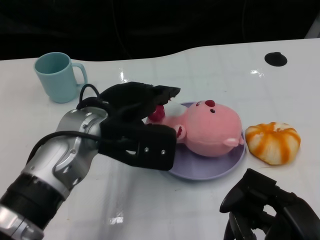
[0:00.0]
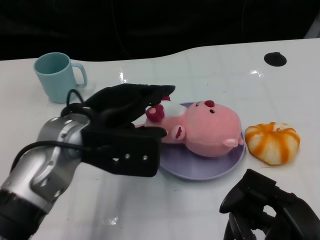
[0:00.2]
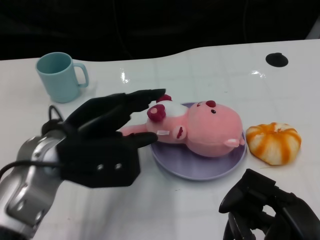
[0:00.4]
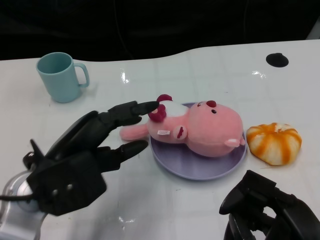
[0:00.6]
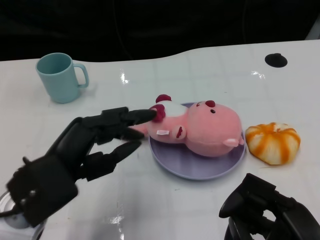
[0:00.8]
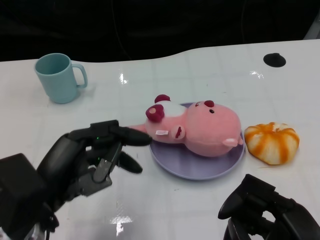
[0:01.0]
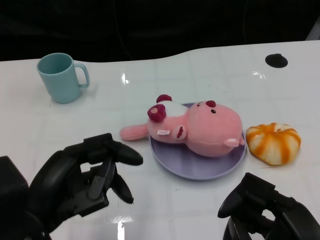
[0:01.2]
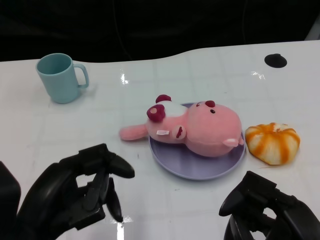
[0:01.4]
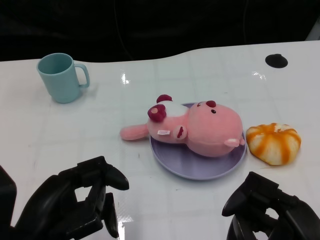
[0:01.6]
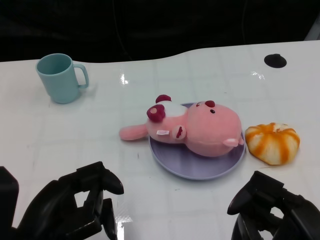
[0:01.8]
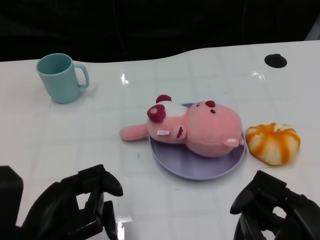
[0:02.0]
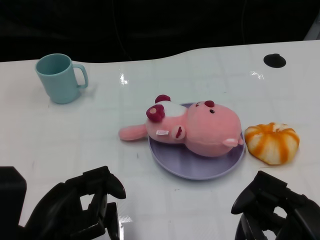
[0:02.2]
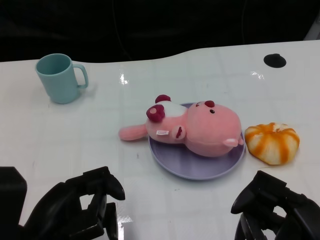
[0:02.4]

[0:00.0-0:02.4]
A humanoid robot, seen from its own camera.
Task of the whole recording: Pick up the doll on one side of the plate and place it into the plate.
0:00.0 to 0:01.2: The left hand moves backward and to the left, about 15 cm.

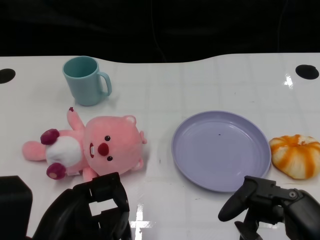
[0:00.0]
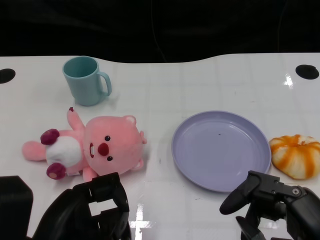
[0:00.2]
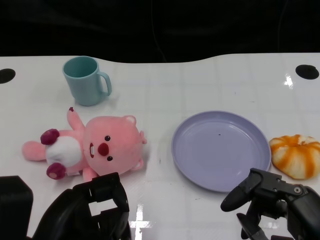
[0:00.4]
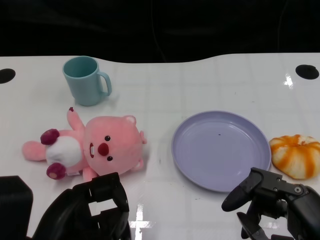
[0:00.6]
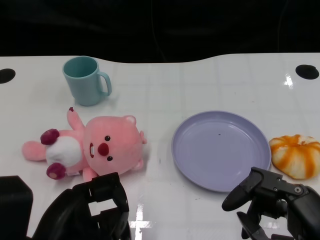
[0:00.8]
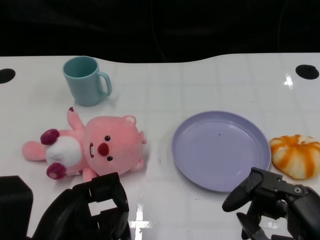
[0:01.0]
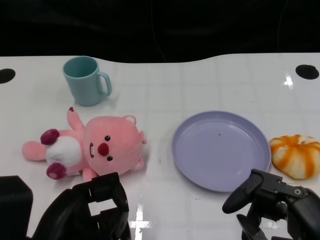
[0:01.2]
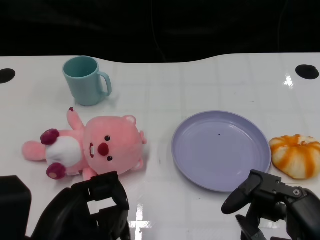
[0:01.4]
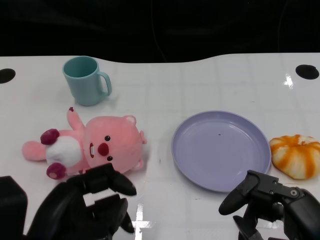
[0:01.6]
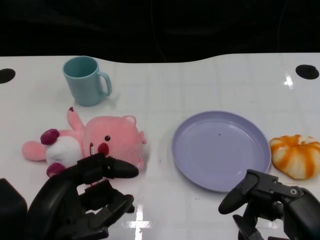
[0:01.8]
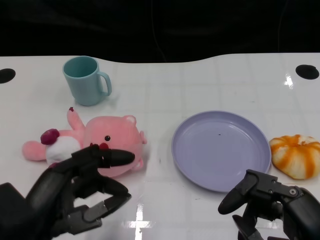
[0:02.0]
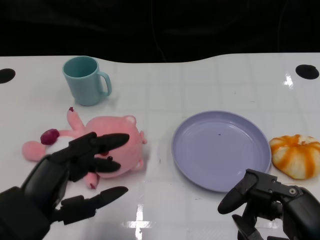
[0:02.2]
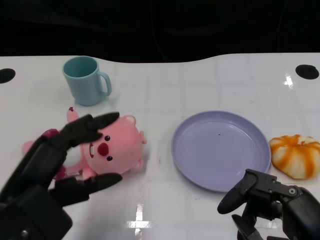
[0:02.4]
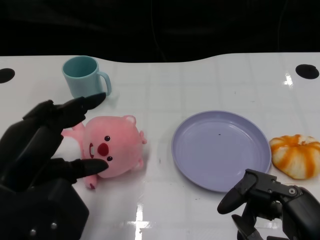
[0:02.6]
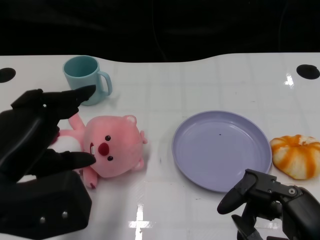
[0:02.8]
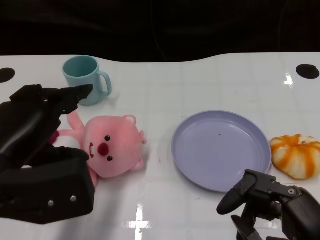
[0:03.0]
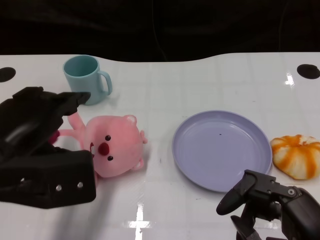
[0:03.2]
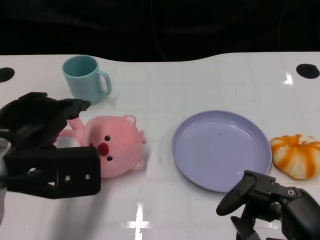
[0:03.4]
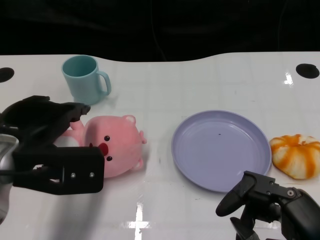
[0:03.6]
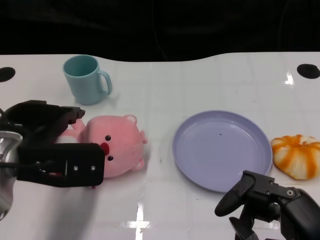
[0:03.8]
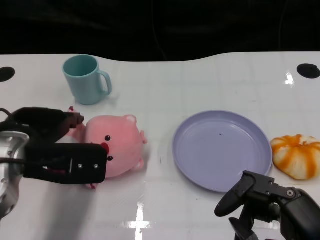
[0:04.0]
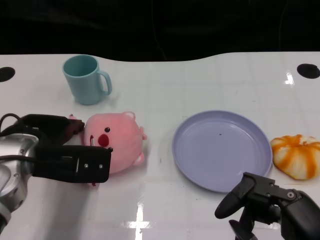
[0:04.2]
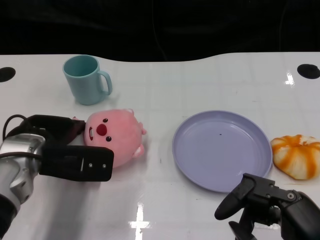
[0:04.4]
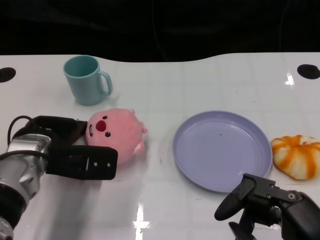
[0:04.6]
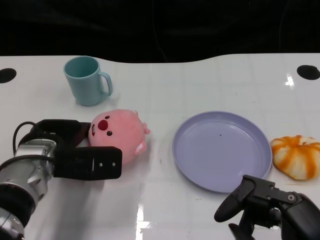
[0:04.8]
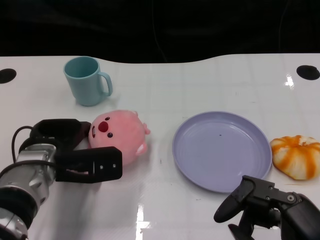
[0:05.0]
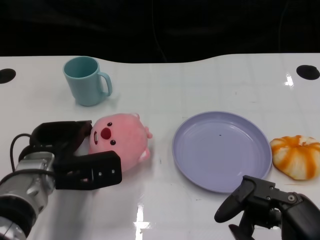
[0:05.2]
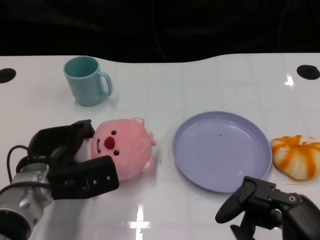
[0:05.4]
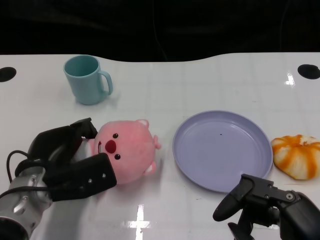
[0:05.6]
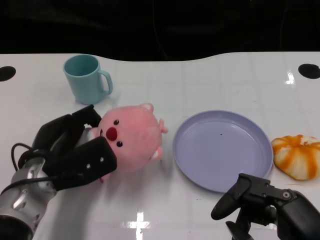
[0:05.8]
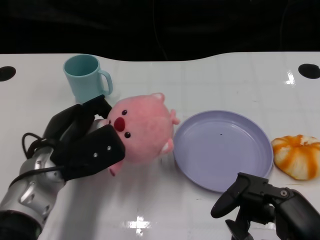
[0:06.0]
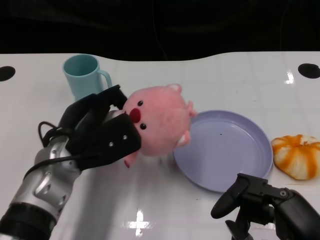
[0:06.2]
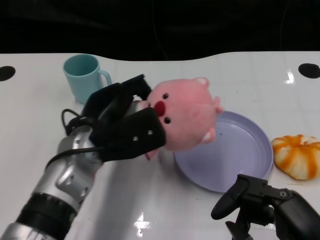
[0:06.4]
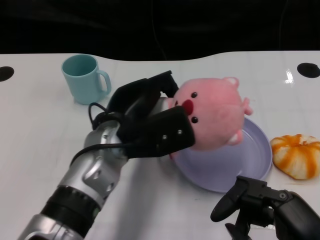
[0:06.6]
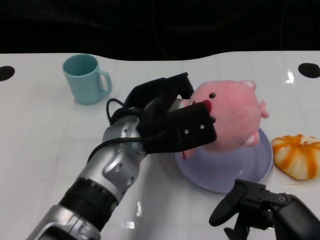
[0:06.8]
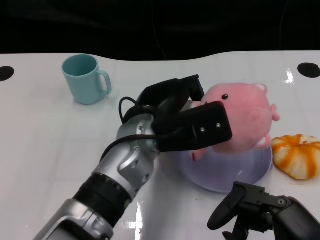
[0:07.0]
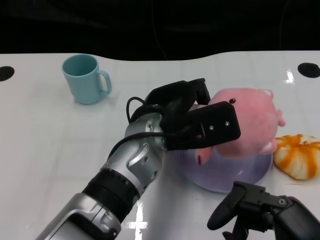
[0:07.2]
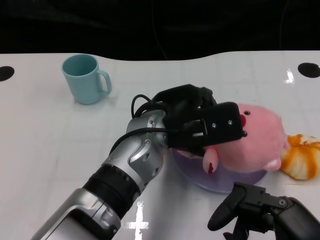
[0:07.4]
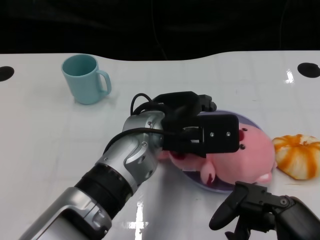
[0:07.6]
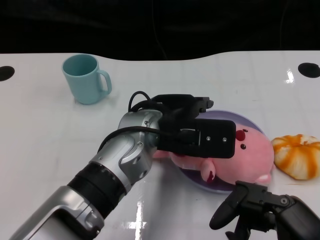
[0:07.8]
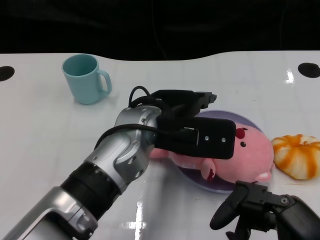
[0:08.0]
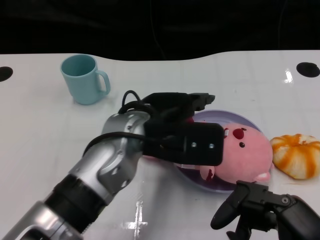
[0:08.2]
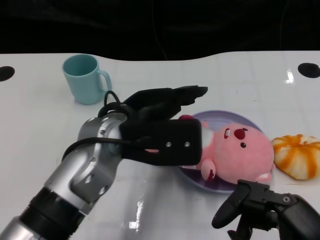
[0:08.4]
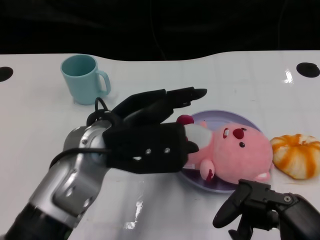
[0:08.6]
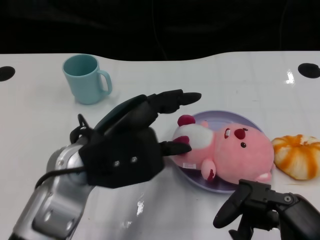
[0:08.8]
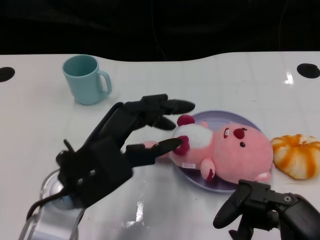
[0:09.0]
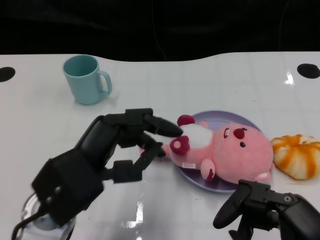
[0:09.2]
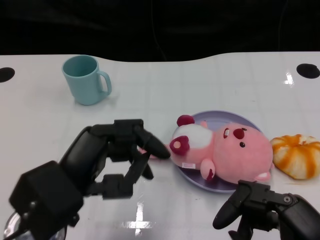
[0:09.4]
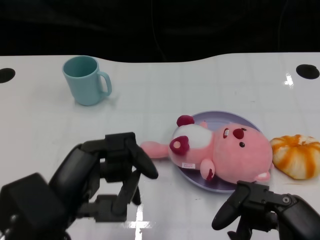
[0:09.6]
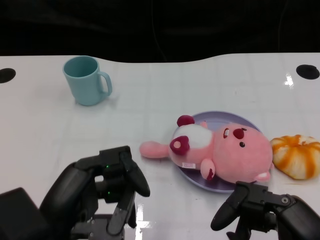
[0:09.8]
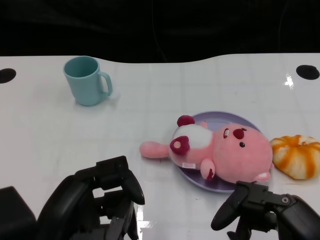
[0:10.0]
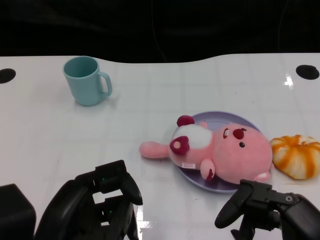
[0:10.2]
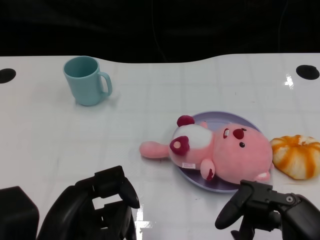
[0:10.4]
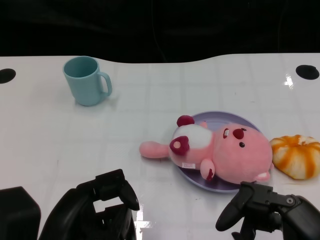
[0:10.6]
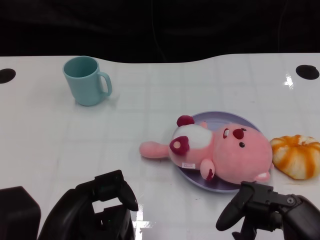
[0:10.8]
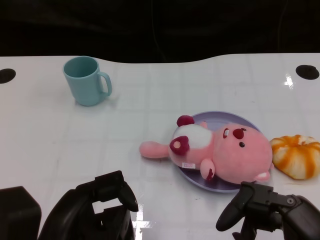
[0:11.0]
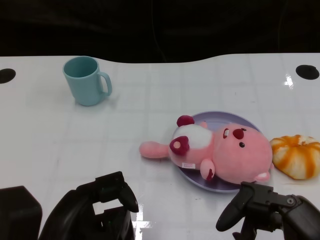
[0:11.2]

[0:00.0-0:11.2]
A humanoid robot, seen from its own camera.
Task of the whole recording: Pick up the doll on one side of the plate and place it into the plate.
Step, 0:01.4 to 0:05.6: Grasp the pink doll with the left gripper.
Step, 0:06.0 to 0:07.8: Place the pink doll into the plate with the left gripper.
0:01.6 to 0:03.2: The left hand moves forward and upward, some 10 cm.
0:03.2 to 0:04.8: The left hand heads downward and forward, covering about 15 cm.
0:04.8 to 0:06.4: The left hand goes about 5 cm to the right.
0:06.4 to 0:08.0: The left hand is displaced to the right by approximately 10 cm.
0:08.0 to 0:09.6: The left hand shifts roughly 20 cm to the left and backward.

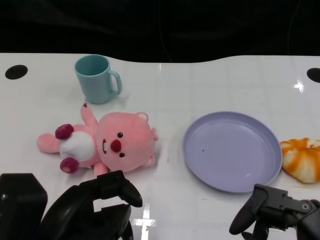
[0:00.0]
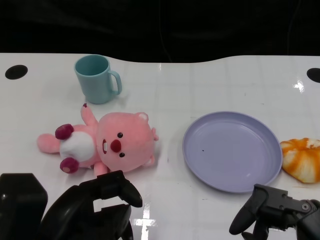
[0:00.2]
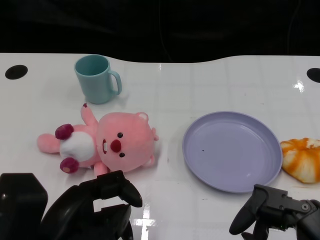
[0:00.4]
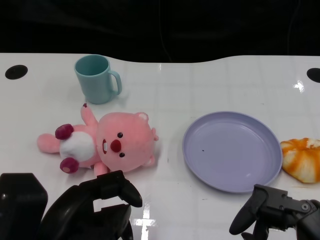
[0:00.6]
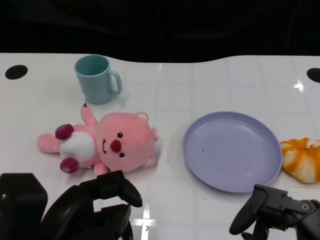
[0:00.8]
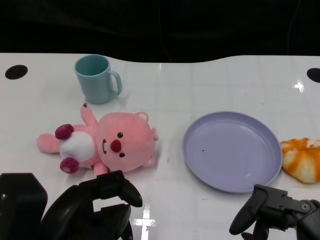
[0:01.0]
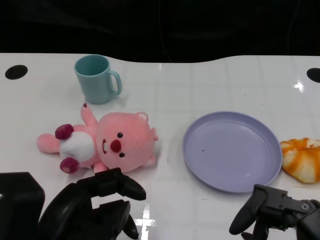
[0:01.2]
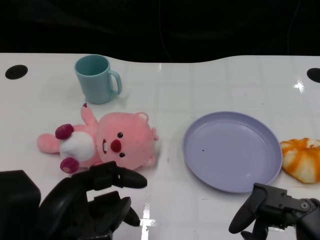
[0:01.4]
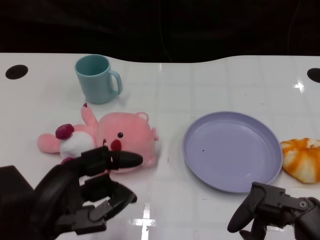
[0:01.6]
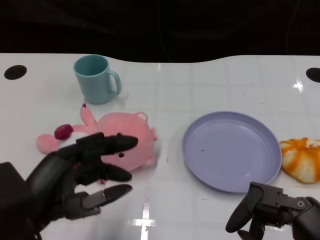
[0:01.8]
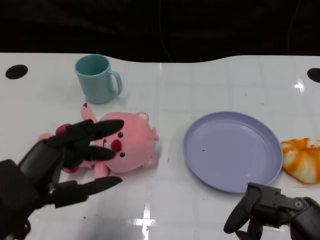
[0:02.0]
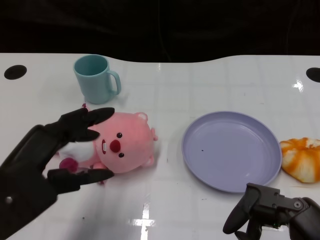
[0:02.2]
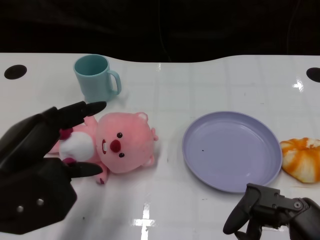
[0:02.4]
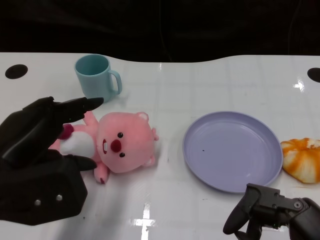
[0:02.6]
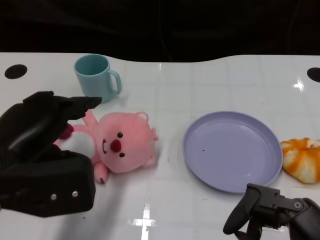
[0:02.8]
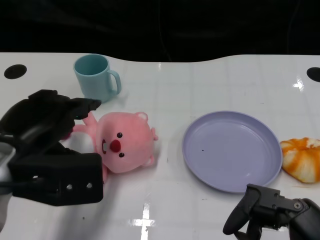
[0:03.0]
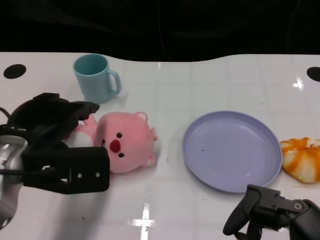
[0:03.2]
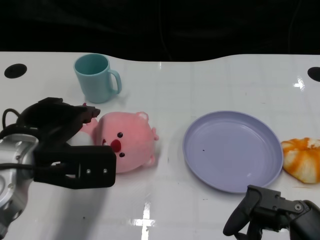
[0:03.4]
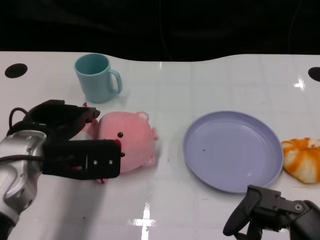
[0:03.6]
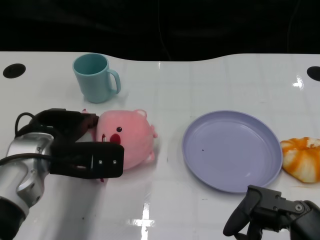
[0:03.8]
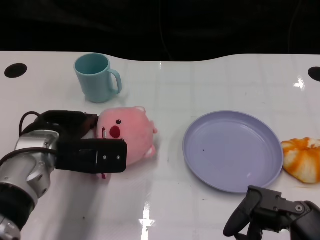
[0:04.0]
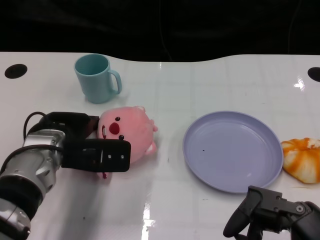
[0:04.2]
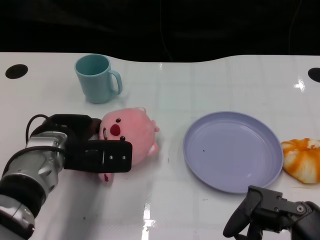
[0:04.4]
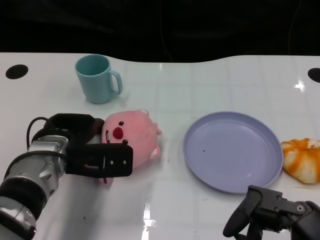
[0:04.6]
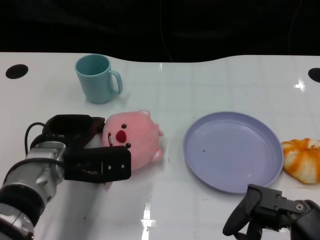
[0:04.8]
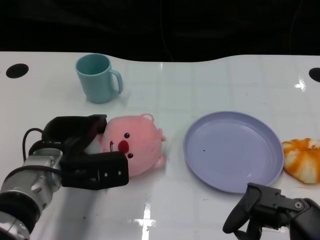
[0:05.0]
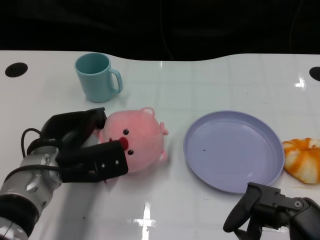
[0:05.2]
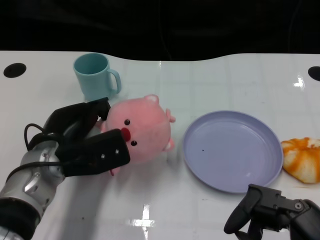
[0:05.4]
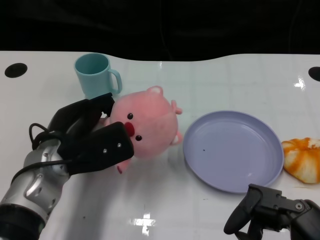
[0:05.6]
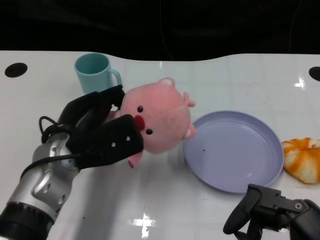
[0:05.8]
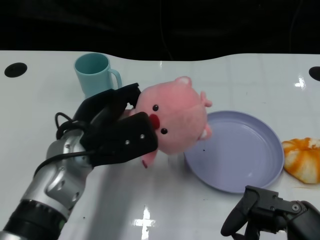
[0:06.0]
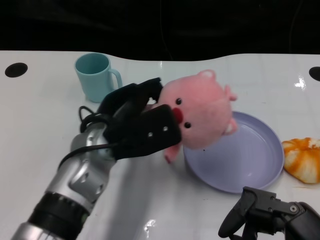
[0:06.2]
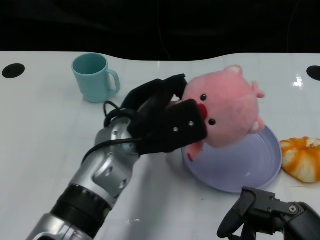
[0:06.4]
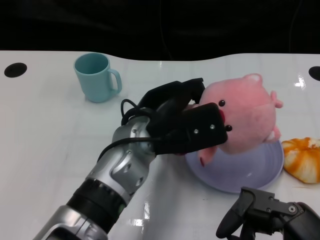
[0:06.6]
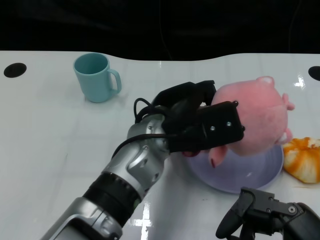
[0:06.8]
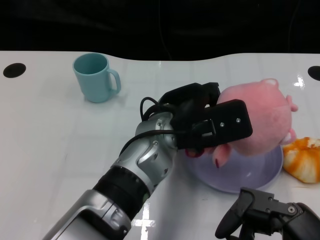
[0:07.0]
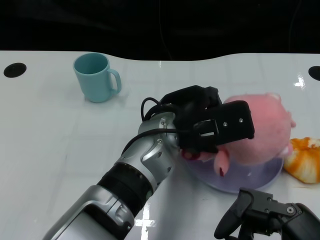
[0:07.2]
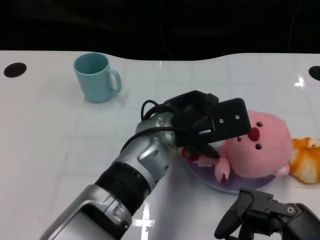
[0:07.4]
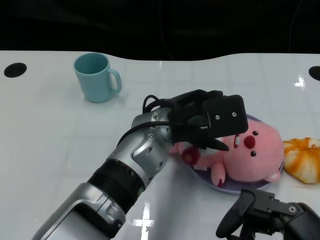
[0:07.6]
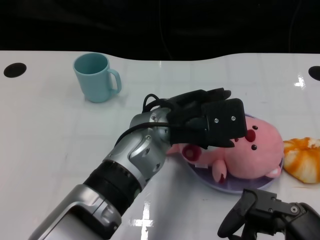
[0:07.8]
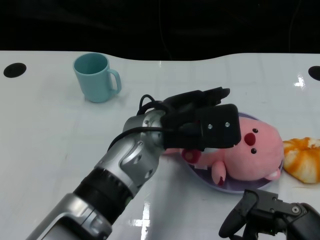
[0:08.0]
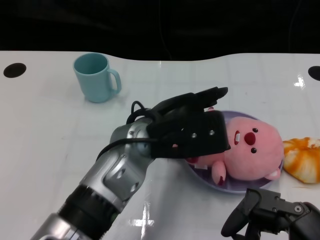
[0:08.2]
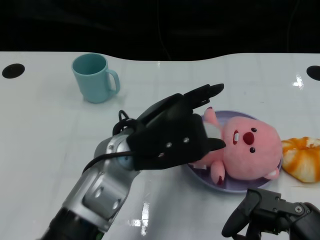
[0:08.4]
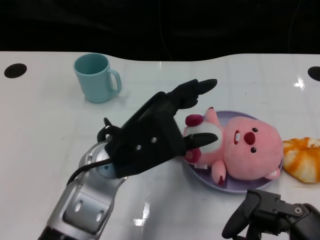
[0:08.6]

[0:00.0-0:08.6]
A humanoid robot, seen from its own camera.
Task of the whole recording: Pick up the doll on one side of the plate and place it into the plate.
Step, 0:01.2 to 0:05.0: Grasp the pink doll with the left gripper.
Step, 0:05.2 to 0:08.2: Place the pink doll into the plate with the left gripper.
0:01.4 to 0:02.8: The left hand shifts some 10 cm forward and upward.
0:02.8 to 0:04.4: The left hand goes roughly 15 cm forward, downward and to the right.
0:05.8 to 0:07.2: The left hand moves to the right, some 15 cm.
0:07.2 to 0:08.6: The left hand is displaced to the left by roughly 10 cm.
